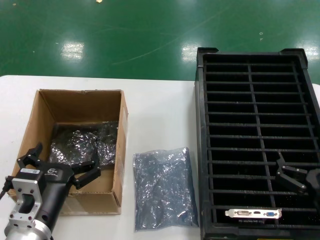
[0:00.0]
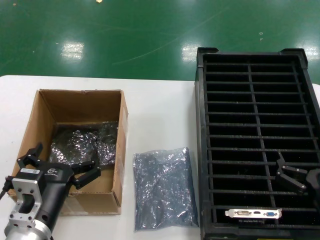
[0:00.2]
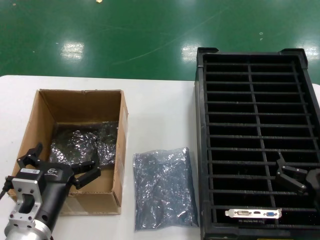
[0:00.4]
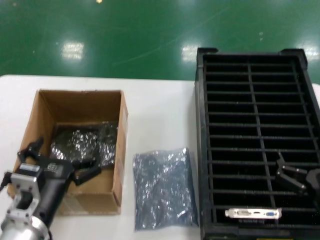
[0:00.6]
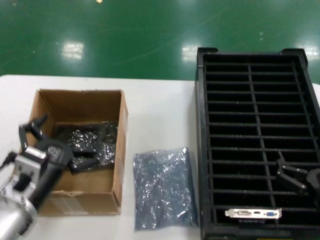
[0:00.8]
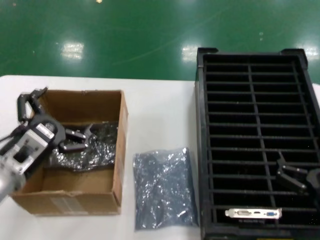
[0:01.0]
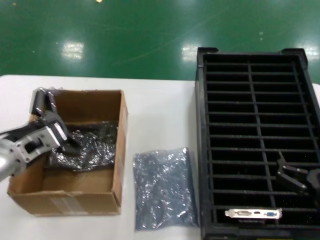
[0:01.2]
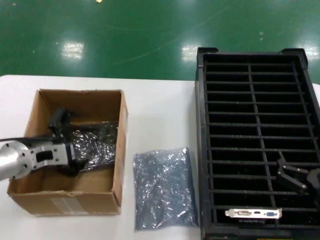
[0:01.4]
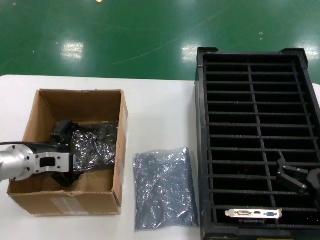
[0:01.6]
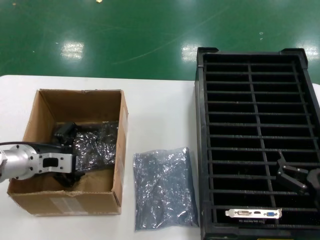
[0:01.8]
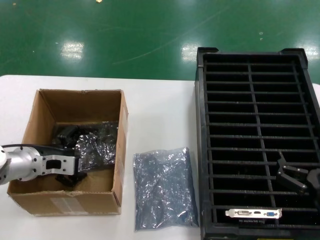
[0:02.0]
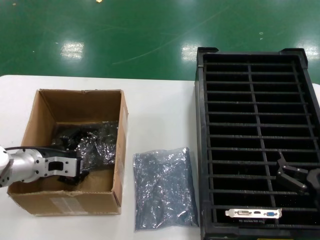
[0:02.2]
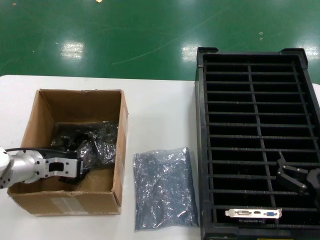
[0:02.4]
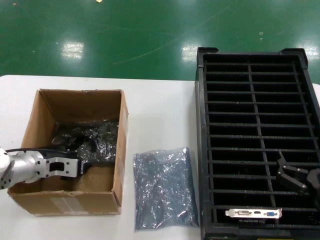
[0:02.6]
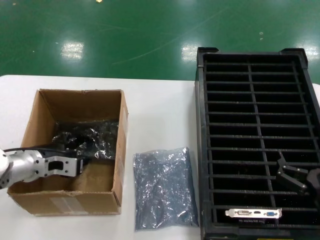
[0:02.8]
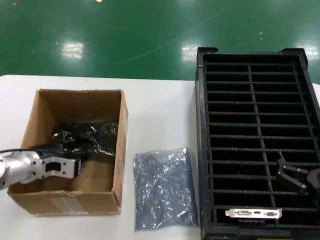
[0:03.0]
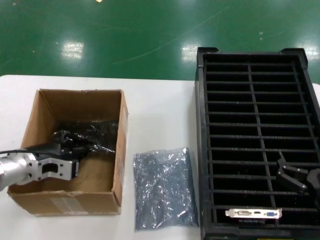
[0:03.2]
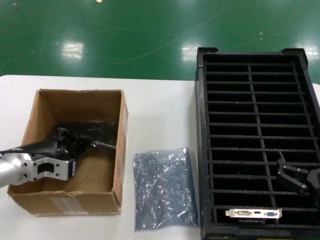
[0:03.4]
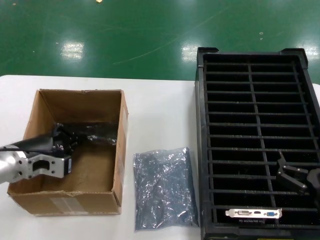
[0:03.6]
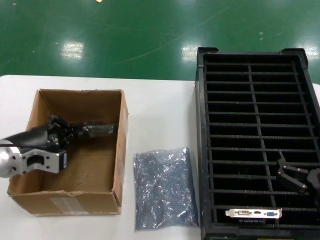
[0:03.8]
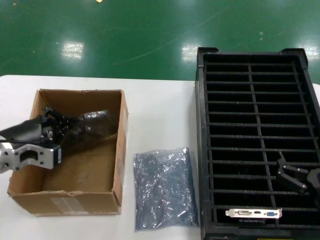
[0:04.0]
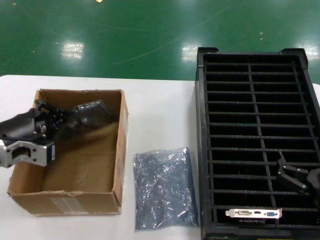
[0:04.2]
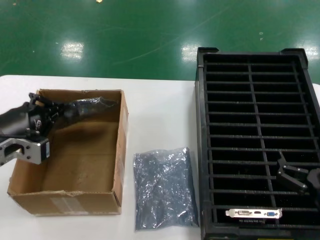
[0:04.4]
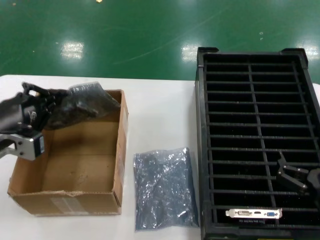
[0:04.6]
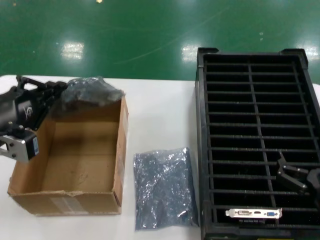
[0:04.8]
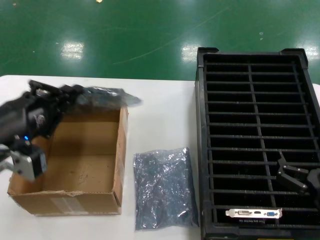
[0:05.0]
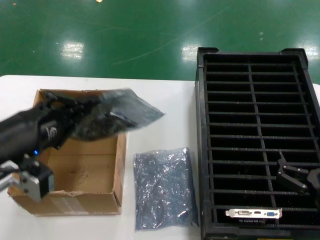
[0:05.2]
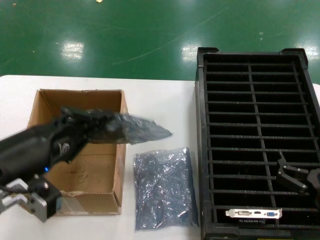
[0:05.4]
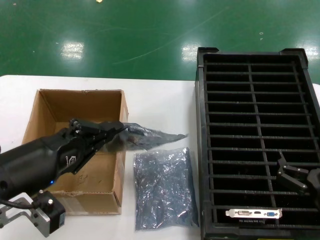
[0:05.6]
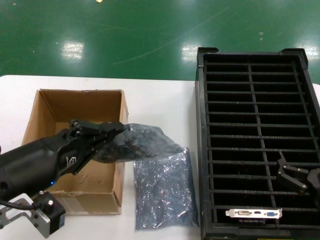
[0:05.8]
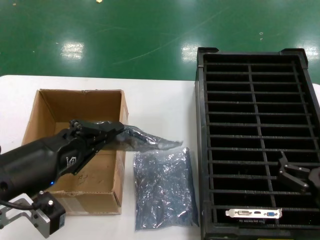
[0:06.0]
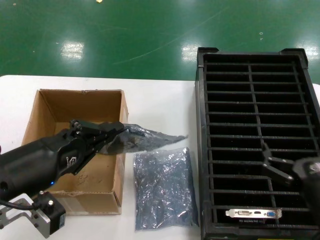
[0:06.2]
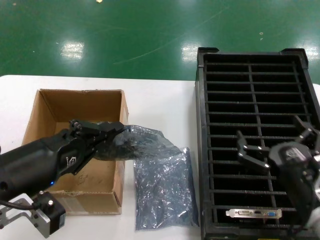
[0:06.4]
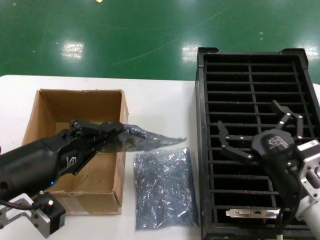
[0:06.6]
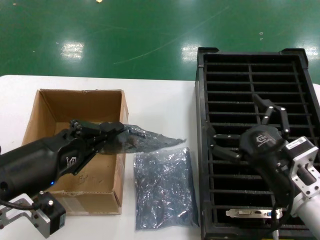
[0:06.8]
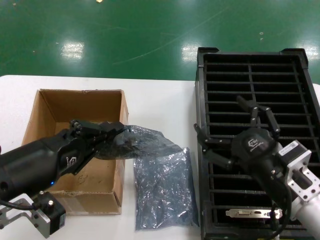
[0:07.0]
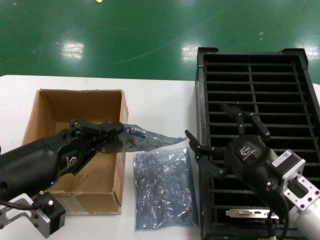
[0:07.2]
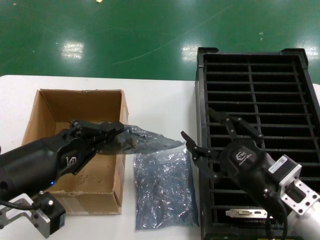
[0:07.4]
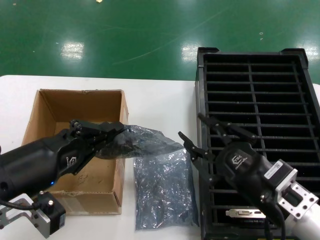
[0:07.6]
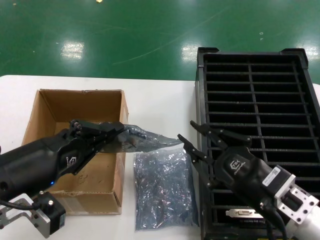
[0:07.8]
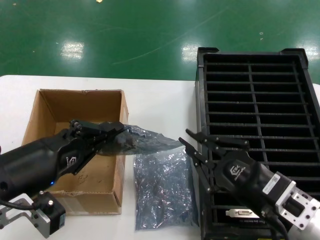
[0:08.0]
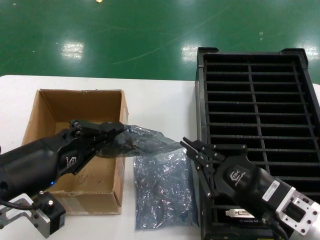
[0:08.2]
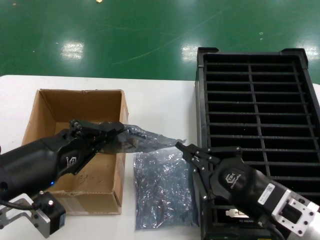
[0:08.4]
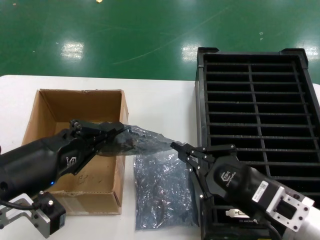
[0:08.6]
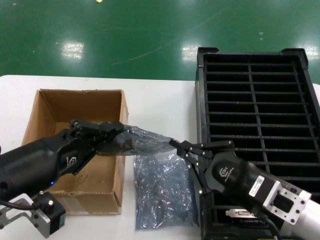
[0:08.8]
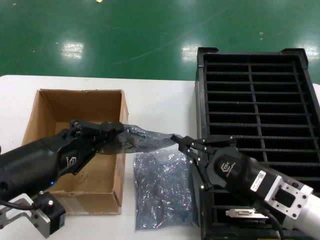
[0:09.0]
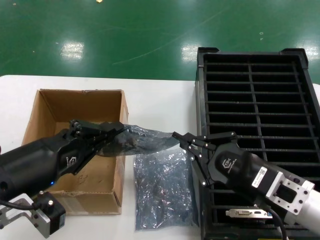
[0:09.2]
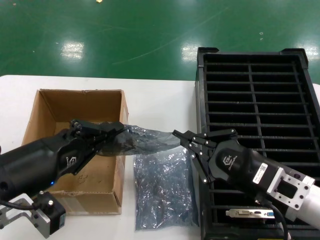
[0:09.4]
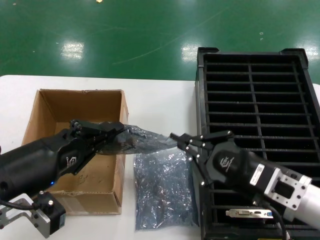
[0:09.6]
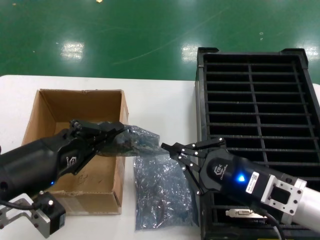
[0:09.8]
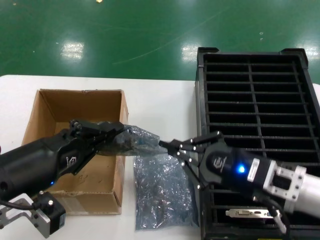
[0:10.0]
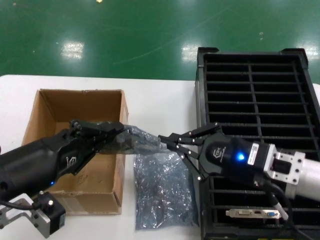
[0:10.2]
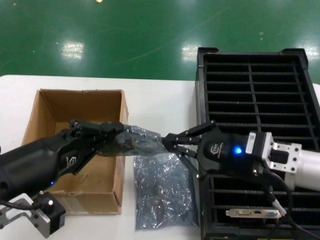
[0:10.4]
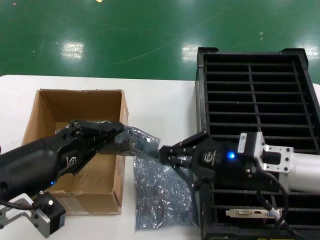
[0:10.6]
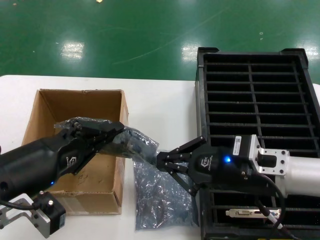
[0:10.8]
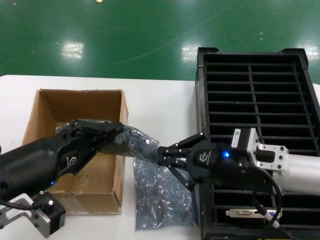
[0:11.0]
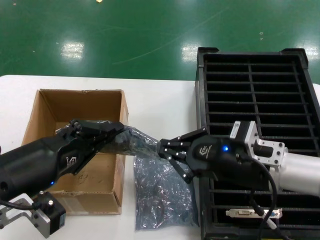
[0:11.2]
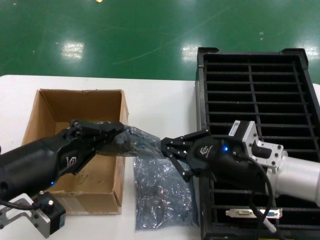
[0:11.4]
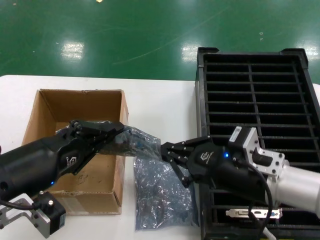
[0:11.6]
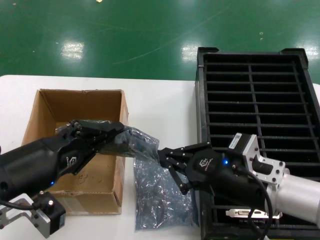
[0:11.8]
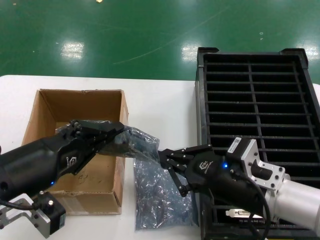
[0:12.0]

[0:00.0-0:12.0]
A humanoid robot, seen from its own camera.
Task of the whole recording: take out graphics card from box remove packaging put into black container.
Step, 0:00.0 to 0:03.0: Grasp the bag.
Step, 0:03.2 to 0:05.4: Lift the bag.
0:00.0 to 0:01.6: The left hand is displaced forward and to the left by some 20 cm.
0:01.6 to 0:03.0: The hands make only small movements.
0:03.0 to 0:04.4: The left hand goes approximately 10 cm upward and backward.
0:04.4 to 0:06.0: The left hand moves backward and to the right, about 15 cm.
0:06.0 to 0:07.6: The right hand is displaced to the left and upward by roughly 10 cm.
0:07.6 to 0:09.0: The hands make only small movements.
0:09.0 to 0:10.4: The right hand goes some 10 cm forward and upward.
0:10.4 to 0:12.0: The right hand travels backward by about 5 cm.

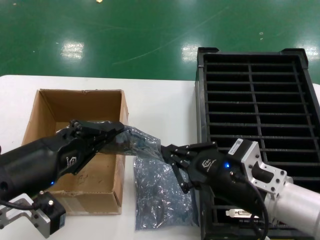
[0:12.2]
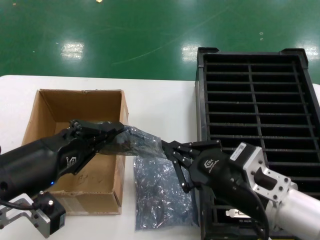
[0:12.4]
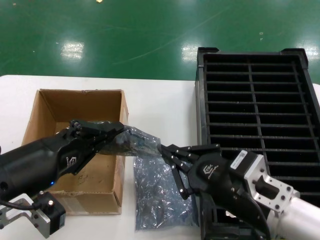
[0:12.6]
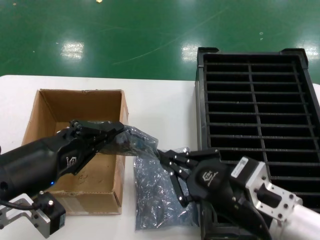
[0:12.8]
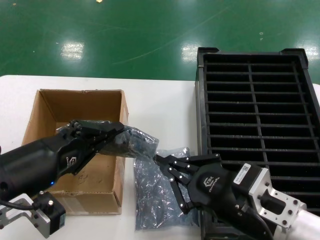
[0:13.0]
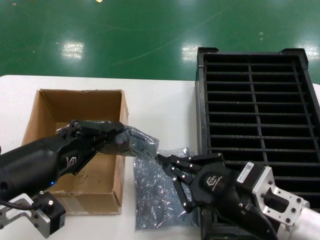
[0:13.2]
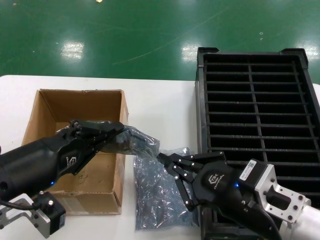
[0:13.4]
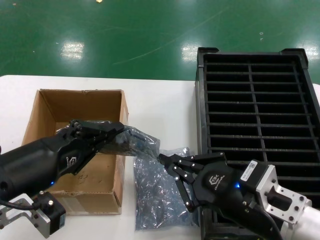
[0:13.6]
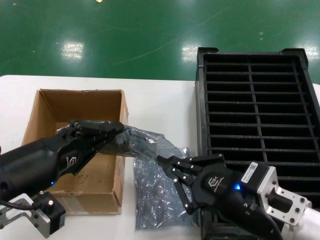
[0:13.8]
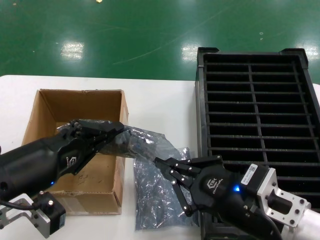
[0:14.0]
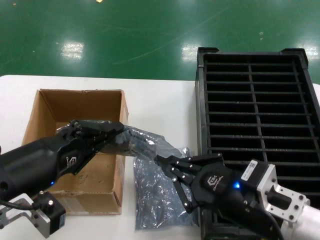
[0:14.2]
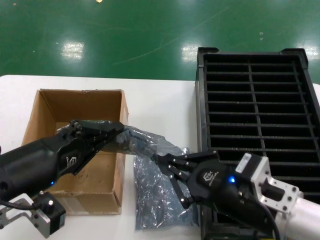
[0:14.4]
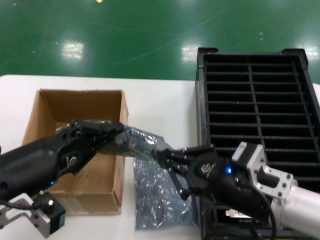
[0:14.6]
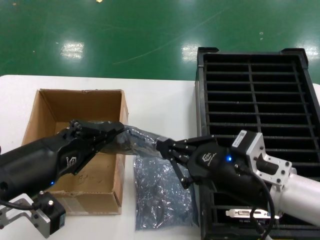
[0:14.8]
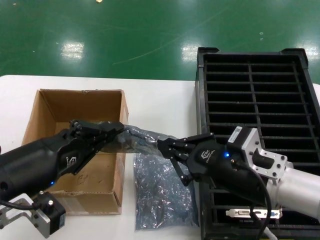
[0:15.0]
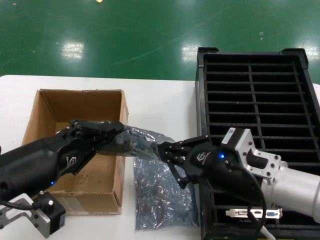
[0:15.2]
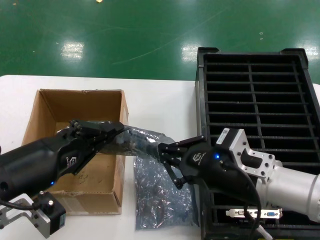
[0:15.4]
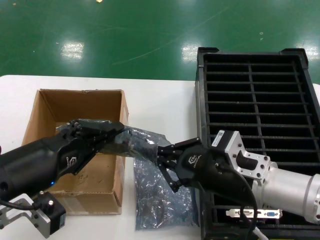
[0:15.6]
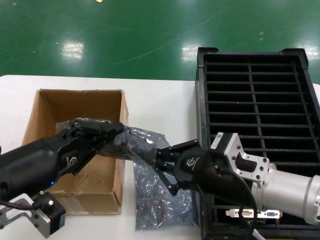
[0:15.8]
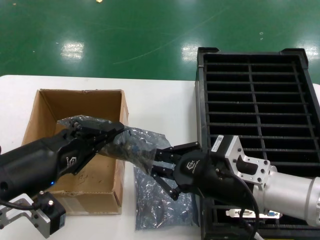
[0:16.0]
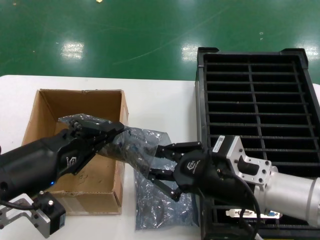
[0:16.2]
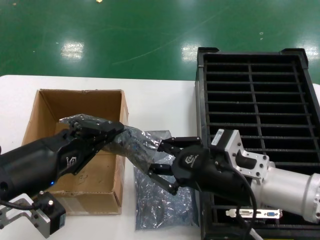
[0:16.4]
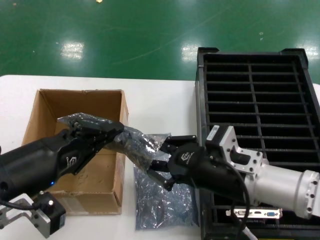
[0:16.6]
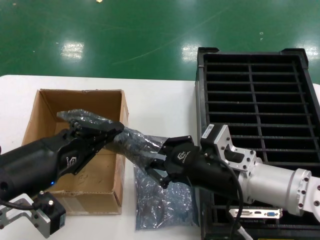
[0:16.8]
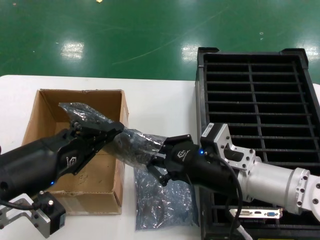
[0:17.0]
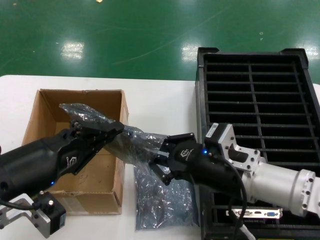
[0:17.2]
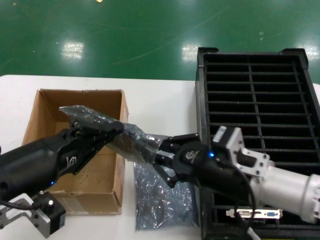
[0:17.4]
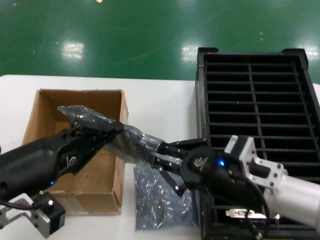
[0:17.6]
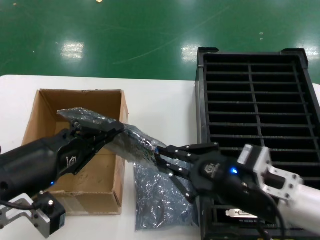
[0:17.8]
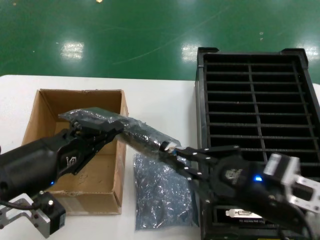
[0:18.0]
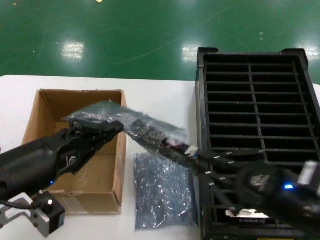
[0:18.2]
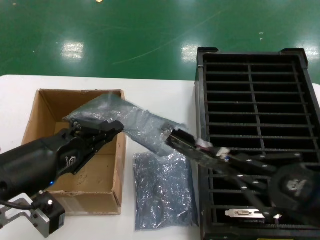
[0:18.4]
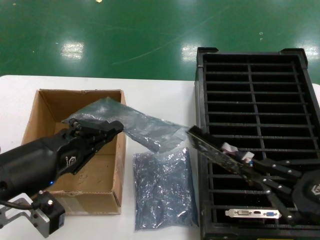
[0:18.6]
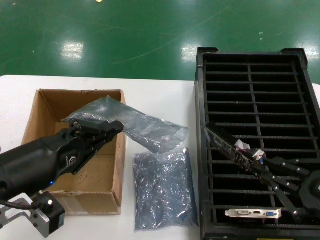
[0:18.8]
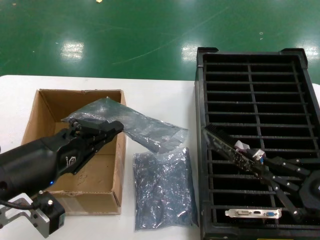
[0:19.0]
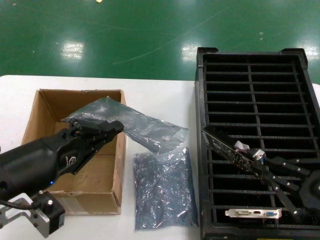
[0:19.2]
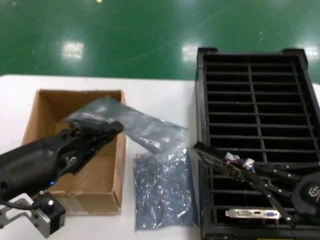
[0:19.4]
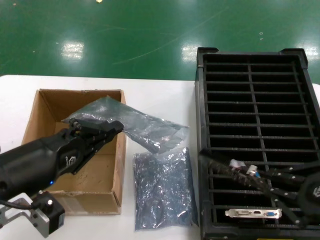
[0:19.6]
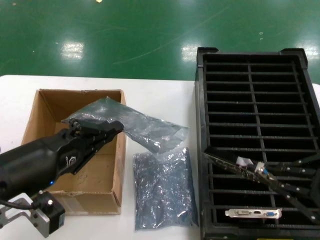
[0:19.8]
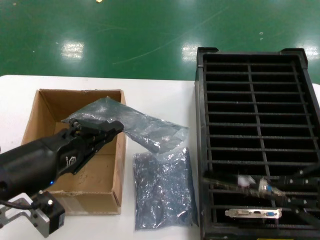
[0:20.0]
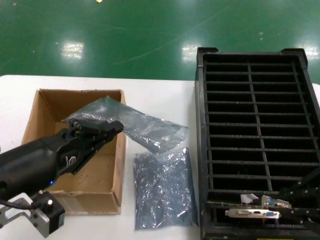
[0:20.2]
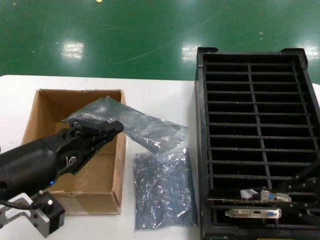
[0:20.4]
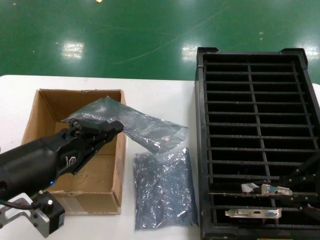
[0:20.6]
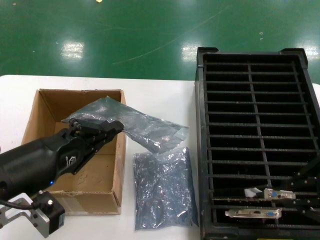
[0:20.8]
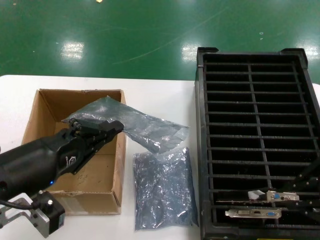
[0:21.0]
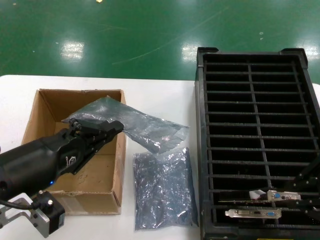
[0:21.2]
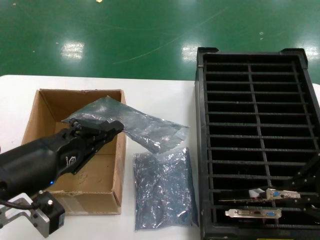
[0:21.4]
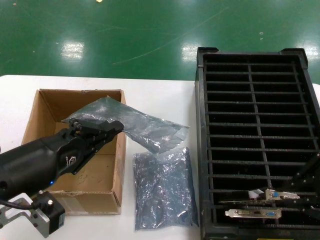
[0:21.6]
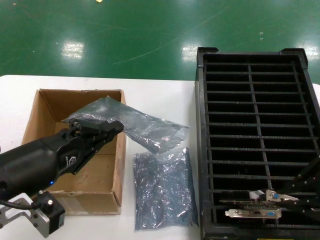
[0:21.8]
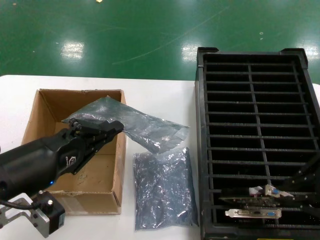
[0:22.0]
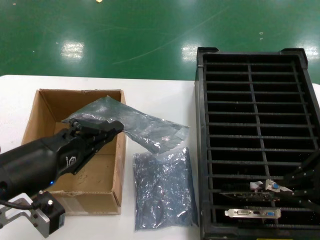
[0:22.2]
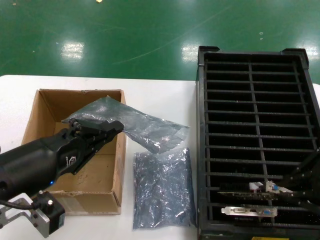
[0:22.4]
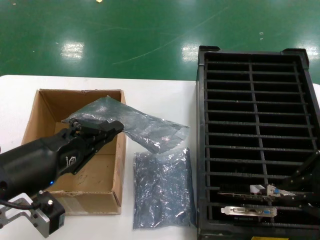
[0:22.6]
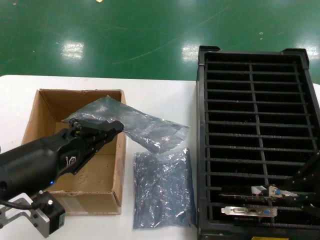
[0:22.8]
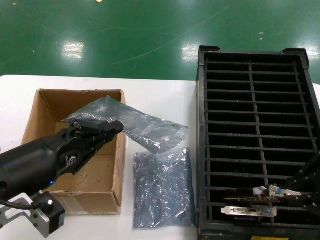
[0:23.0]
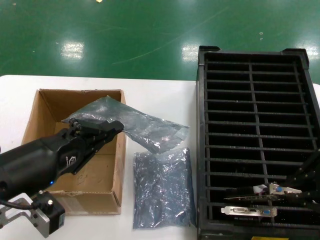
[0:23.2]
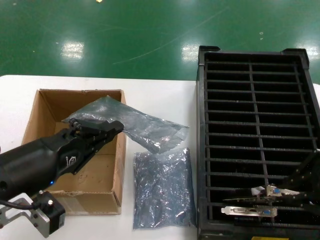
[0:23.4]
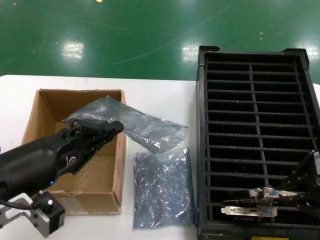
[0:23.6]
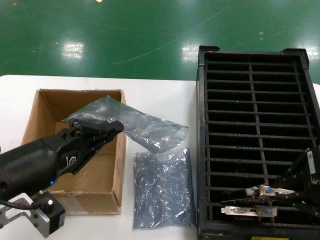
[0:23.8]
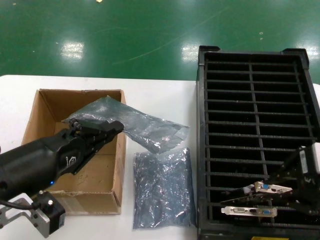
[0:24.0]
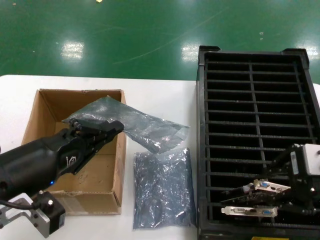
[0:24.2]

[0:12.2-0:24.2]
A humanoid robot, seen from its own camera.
Task of the whole recording: take out graphics card from box remove packaging put into black container.
Step, 0:12.2 to 0:19.0: Take out the hard disk of the bag.
0:12.2 to 0:13.8: The right hand goes about 5 cm backward.
0:13.8 to 0:15.2: The right hand moves forward, some 5 cm.
0:15.2 to 0:16.6: The hands stay close to where they were, moving slightly.
0:16.6 to 0:18.2: The right hand travels to the right and backward by roughly 15 cm.
0:18.2 to 0:19.8: The right hand heads to the right and upward, covering about 10 cm.
0:19.8 to 0:21.2: The right hand goes approximately 5 cm forward.
0:21.2 to 0:22.6: The hands stay close to where they were, moving slightly.
0:22.6 to 0:24.2: The hands stay close to where they were, moving slightly.
